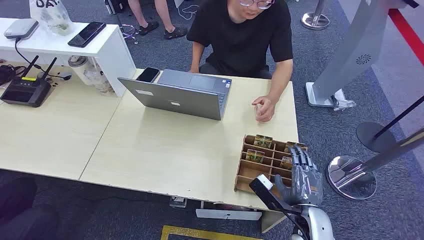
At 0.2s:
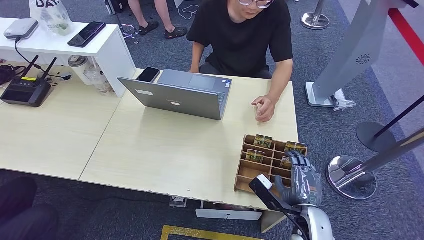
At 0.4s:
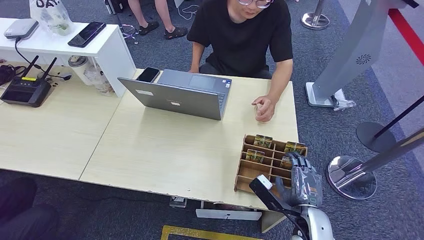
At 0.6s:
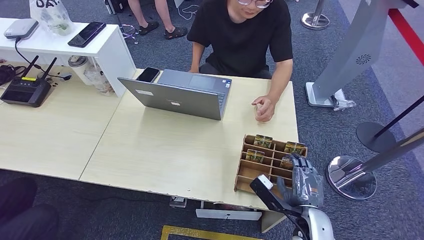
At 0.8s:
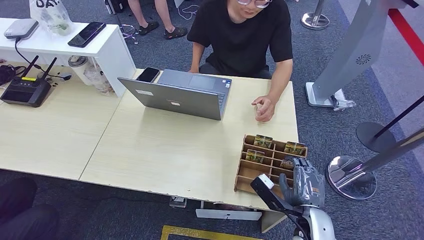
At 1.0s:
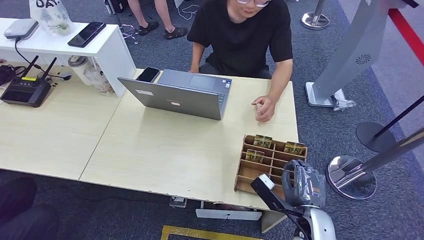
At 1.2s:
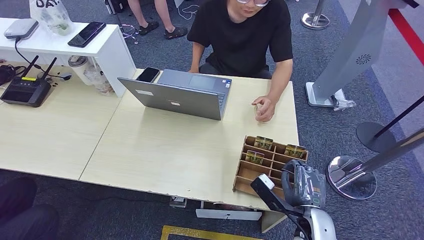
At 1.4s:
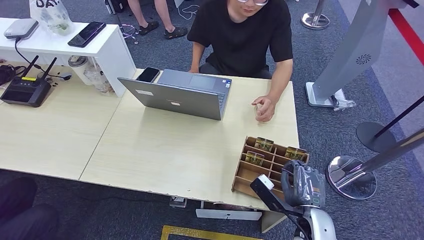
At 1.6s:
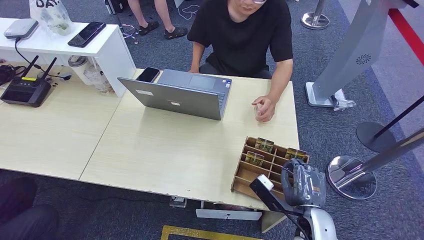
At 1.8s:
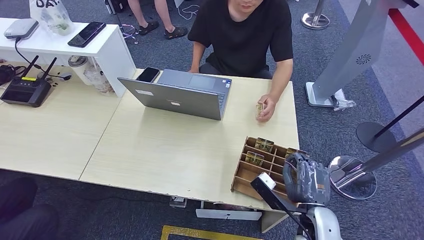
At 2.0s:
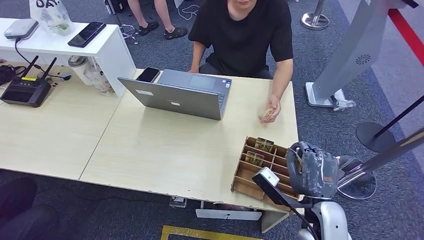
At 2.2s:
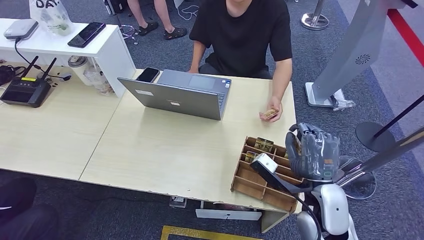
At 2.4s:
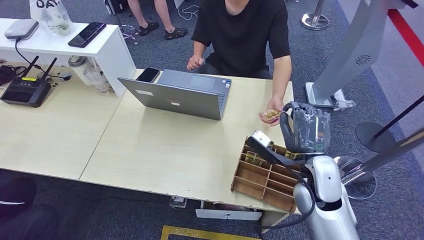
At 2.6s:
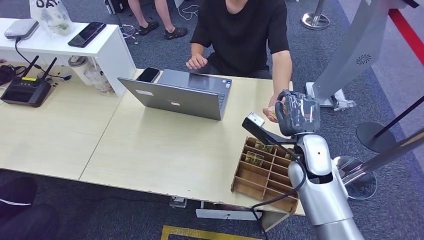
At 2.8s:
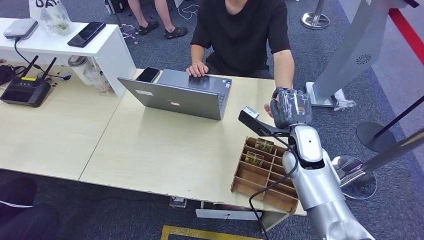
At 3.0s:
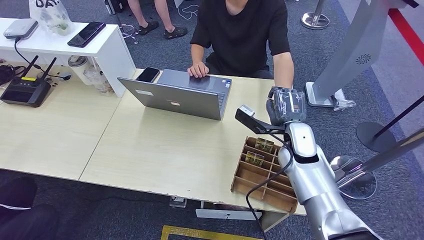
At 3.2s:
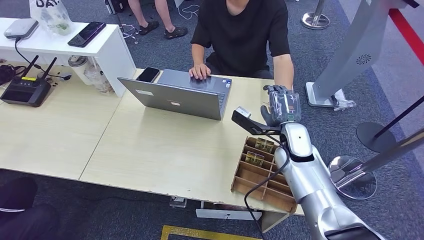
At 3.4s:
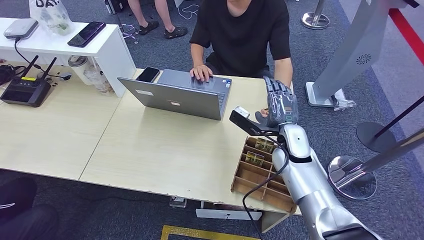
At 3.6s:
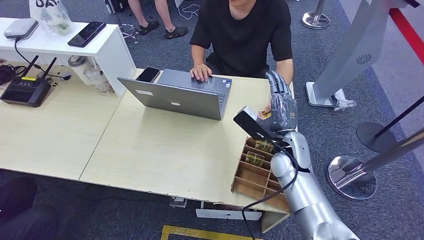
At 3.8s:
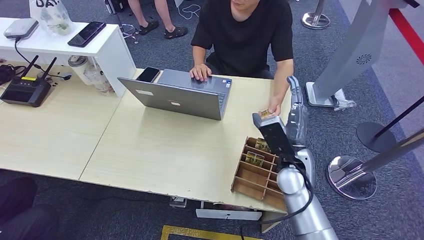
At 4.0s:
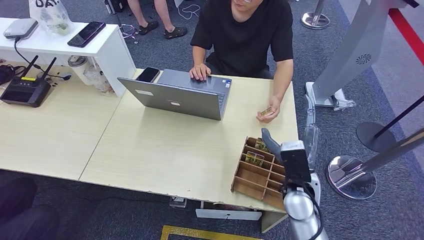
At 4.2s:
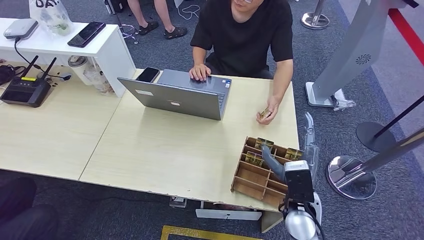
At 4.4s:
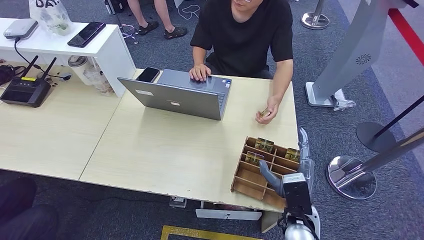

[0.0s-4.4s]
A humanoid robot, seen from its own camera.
Step, 0.0s to 2.0s: Pick up the key card from the card box.
Step, 2.2s to 4.4s: Hand the key card to the target.
1.4s to 3.0s: The right hand travels forward and upward by some 20 cm.
3.0s to 4.4s: The right hand heads backward and downward, covering approximately 20 cm.
